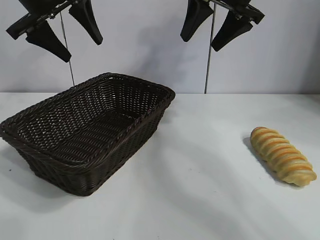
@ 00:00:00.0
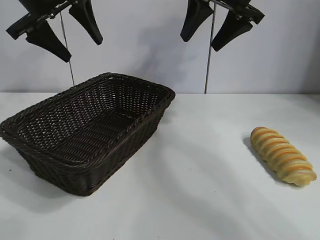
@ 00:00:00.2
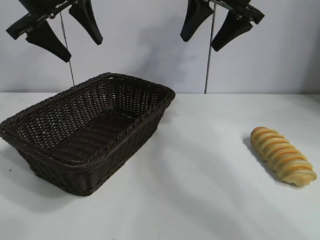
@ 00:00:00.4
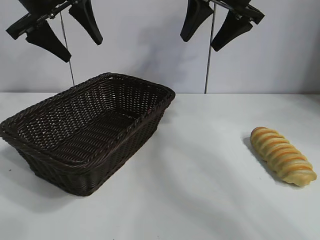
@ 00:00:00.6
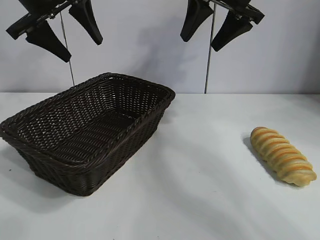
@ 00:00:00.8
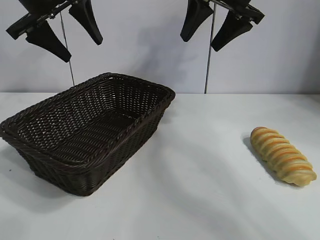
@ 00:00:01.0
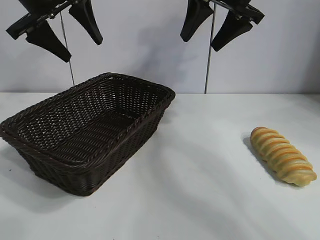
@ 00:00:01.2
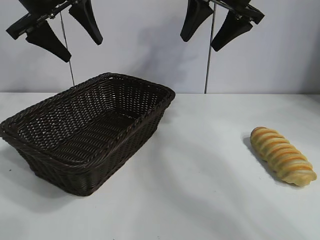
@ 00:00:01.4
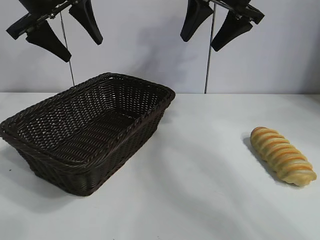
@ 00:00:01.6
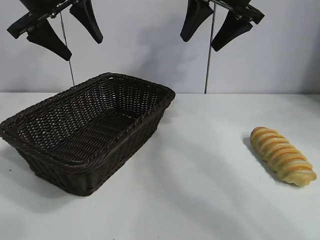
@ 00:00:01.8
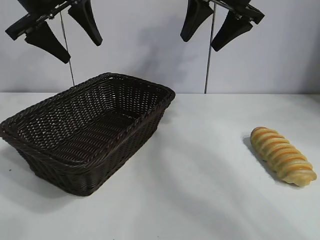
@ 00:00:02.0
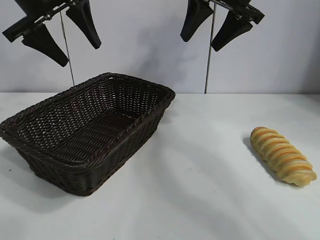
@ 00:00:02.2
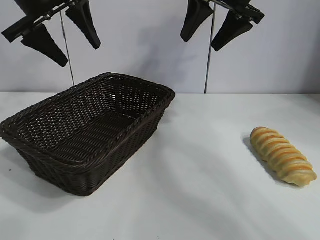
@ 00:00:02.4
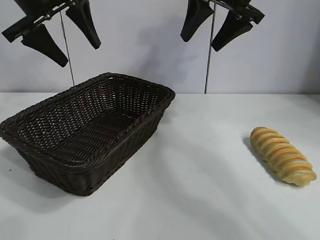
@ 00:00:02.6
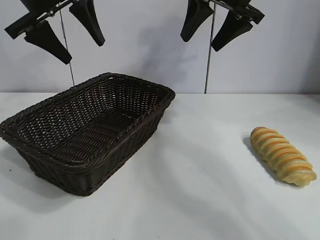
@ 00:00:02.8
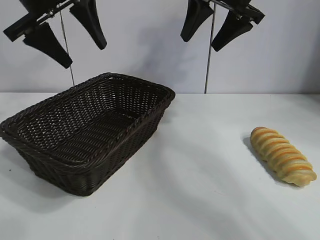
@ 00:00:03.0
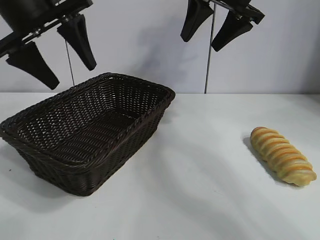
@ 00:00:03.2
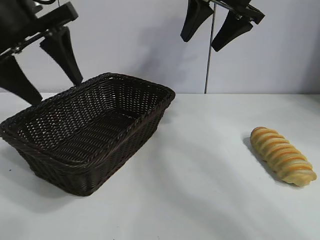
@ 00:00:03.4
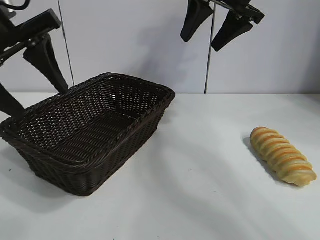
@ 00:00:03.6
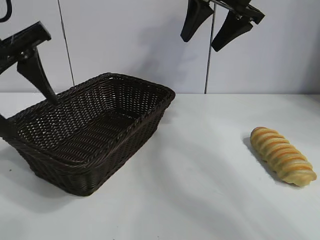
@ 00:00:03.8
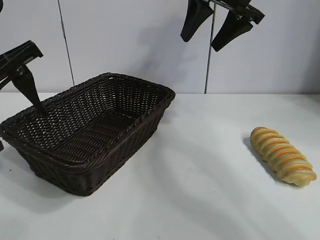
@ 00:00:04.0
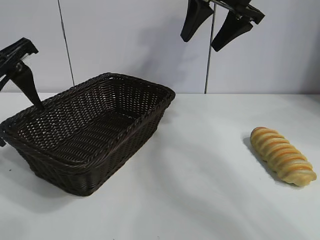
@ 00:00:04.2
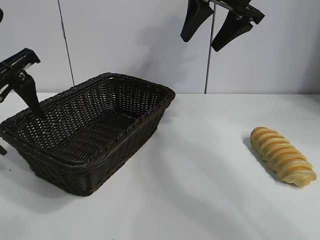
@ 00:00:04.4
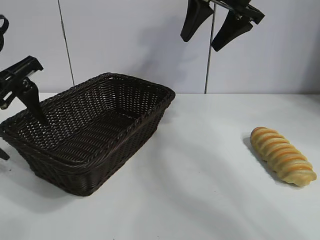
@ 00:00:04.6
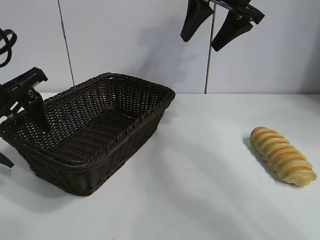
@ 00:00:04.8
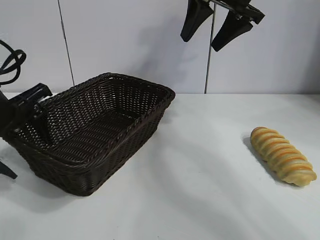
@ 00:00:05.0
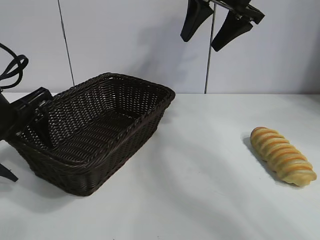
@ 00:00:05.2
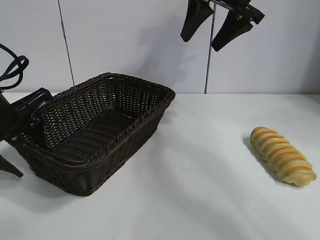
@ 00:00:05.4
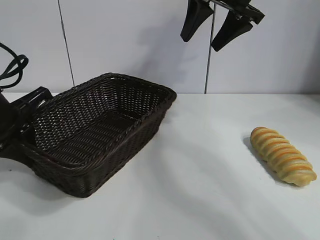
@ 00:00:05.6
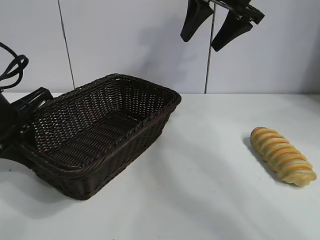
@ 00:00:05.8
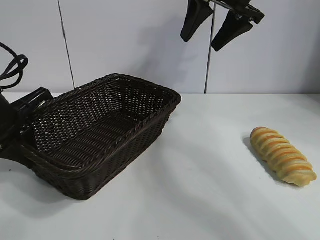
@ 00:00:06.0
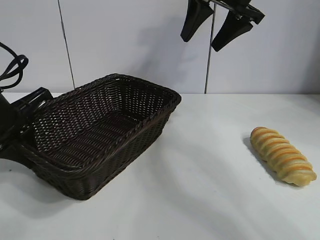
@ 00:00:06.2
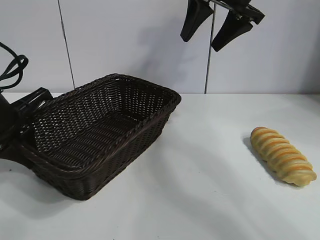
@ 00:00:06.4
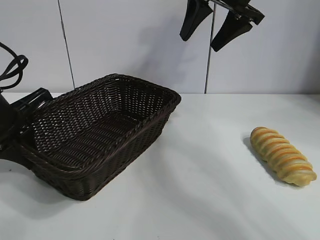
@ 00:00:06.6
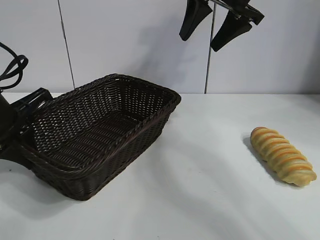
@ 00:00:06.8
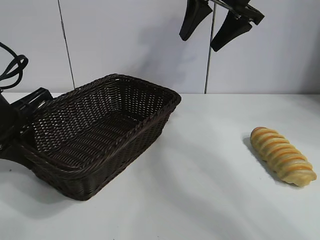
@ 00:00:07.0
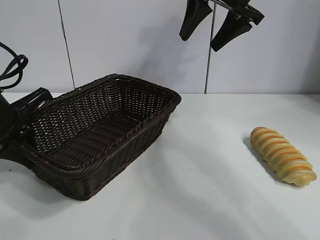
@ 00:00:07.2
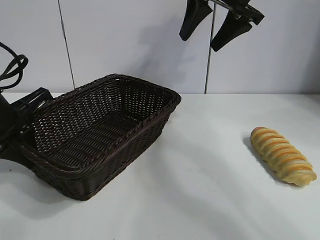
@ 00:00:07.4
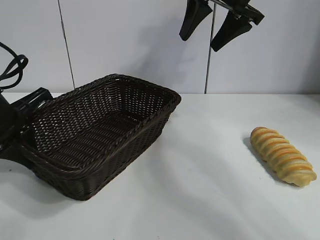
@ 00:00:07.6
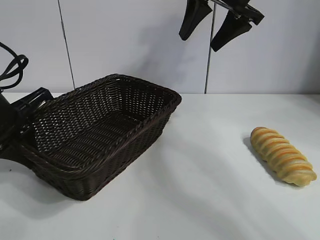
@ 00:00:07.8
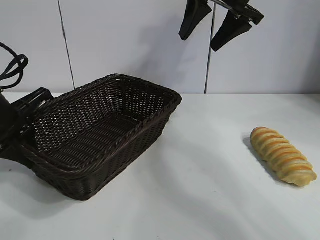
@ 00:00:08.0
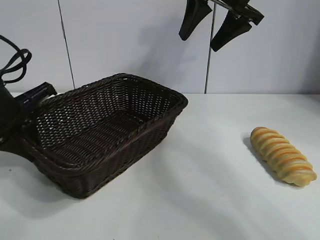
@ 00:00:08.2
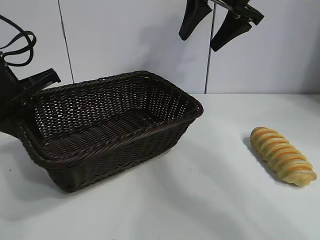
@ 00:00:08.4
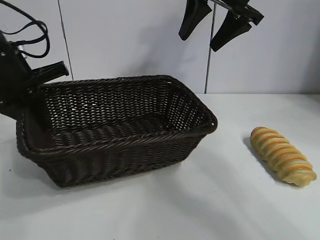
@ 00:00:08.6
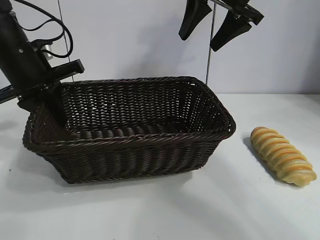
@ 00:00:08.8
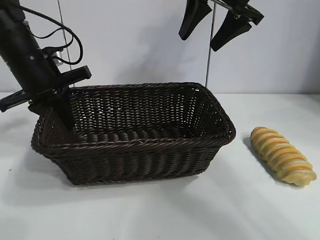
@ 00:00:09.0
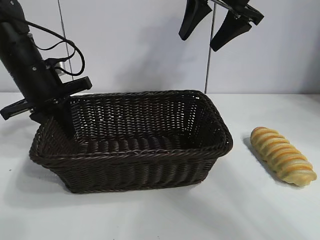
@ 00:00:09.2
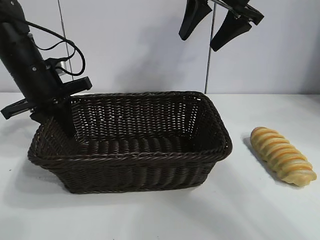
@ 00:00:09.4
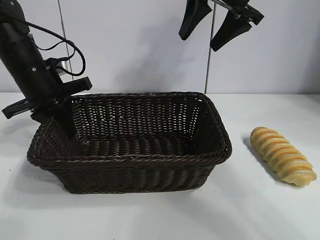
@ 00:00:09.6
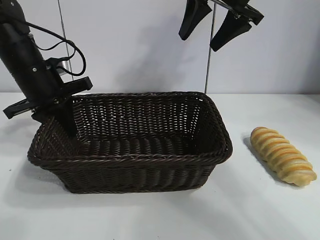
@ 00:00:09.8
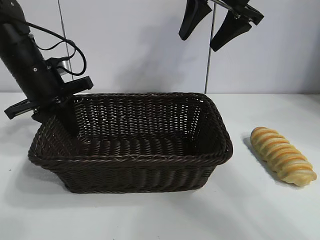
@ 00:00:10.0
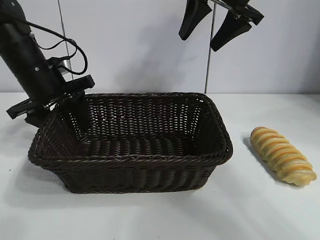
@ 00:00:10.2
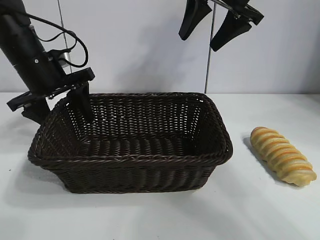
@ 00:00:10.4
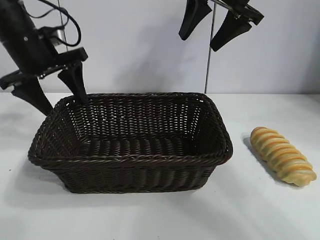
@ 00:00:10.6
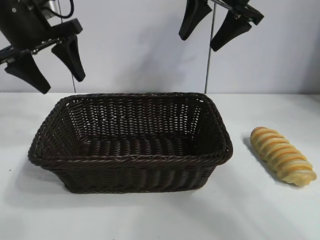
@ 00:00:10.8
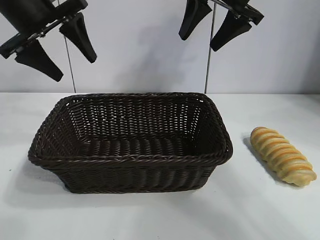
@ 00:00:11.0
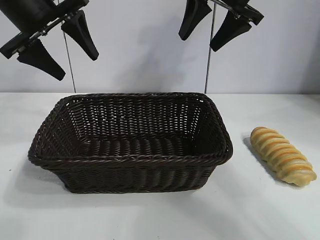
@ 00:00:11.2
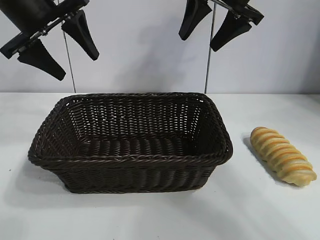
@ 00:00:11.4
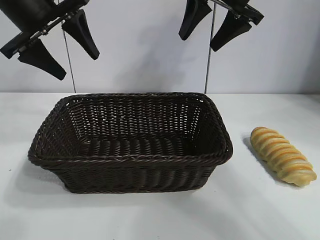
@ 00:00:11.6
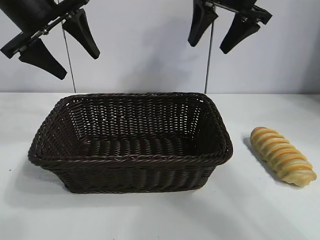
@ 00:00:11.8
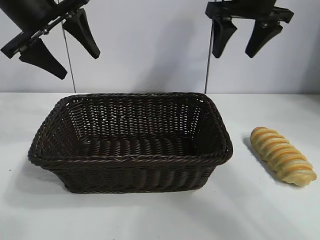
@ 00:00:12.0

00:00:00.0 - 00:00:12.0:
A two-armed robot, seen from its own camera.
Task of the whole recording: pick up the long bread and put it into the basket.
Step, 00:00:01.8 - 00:00:05.8: Grasp the basket with the left gripper.
Step, 00:00:08.2 - 00:00:10.2: Place the basket in the center of the table with the left gripper.

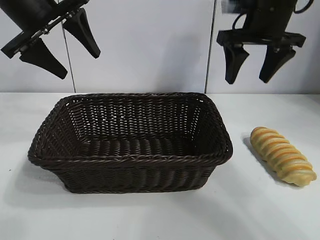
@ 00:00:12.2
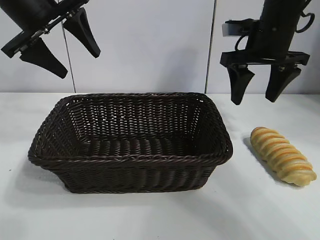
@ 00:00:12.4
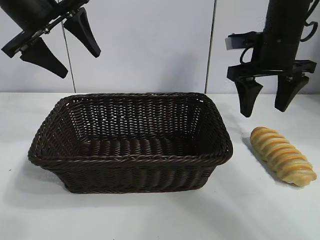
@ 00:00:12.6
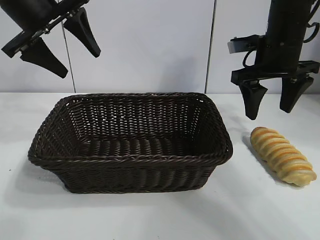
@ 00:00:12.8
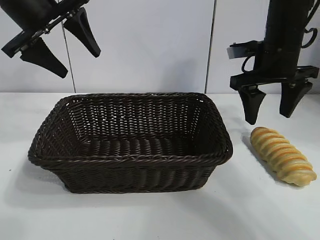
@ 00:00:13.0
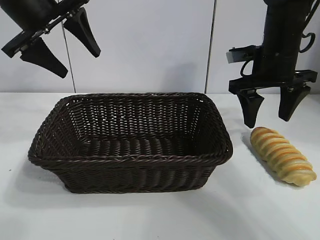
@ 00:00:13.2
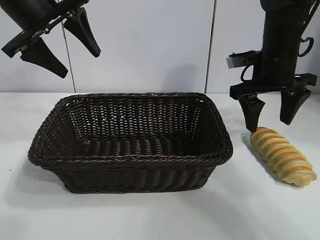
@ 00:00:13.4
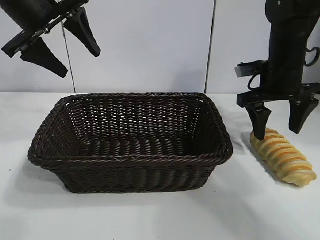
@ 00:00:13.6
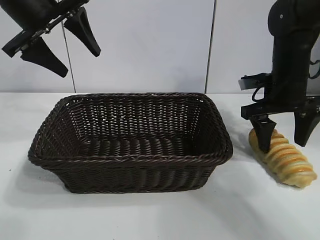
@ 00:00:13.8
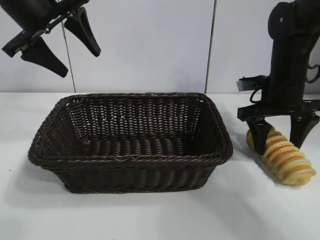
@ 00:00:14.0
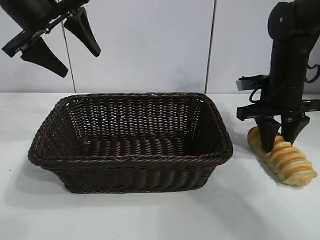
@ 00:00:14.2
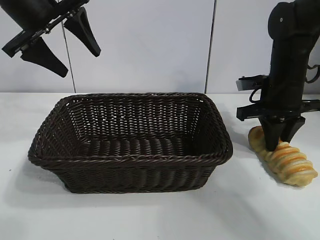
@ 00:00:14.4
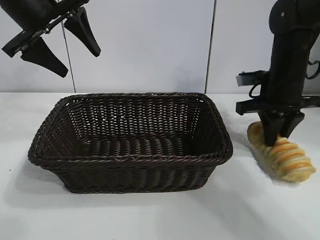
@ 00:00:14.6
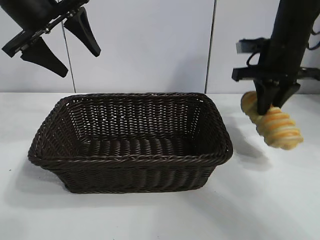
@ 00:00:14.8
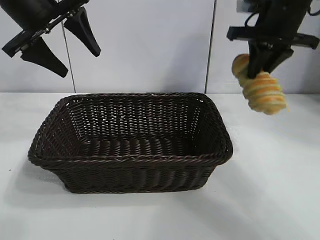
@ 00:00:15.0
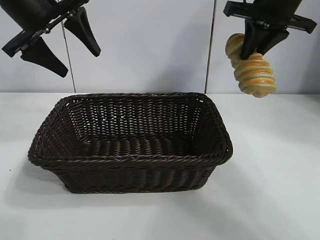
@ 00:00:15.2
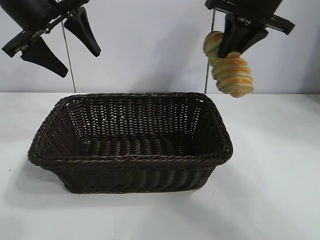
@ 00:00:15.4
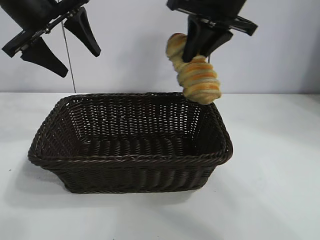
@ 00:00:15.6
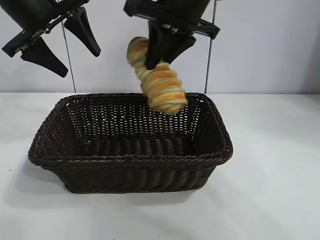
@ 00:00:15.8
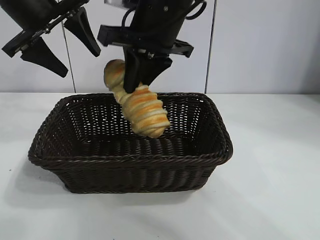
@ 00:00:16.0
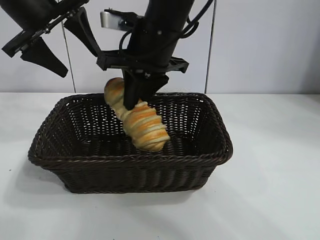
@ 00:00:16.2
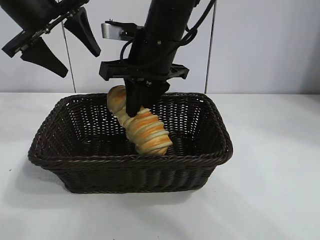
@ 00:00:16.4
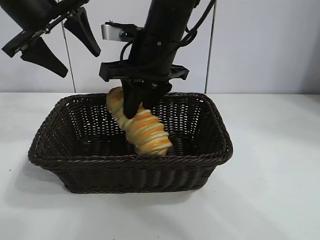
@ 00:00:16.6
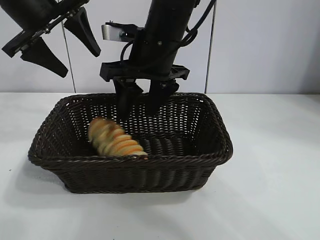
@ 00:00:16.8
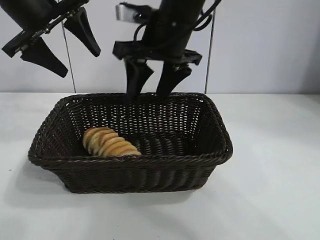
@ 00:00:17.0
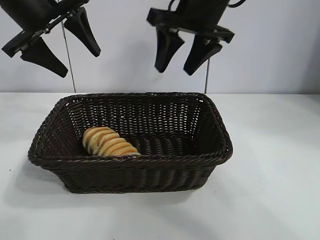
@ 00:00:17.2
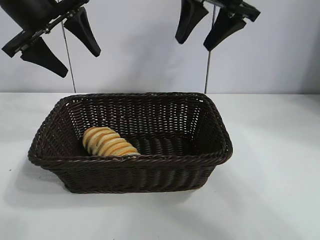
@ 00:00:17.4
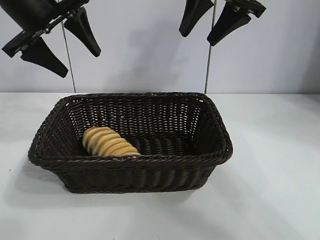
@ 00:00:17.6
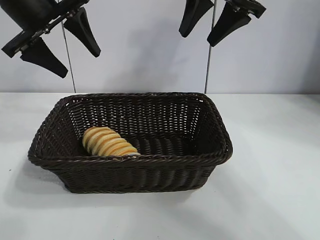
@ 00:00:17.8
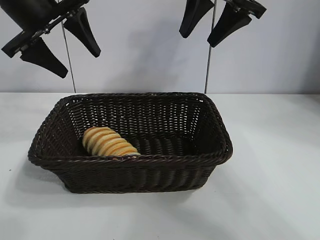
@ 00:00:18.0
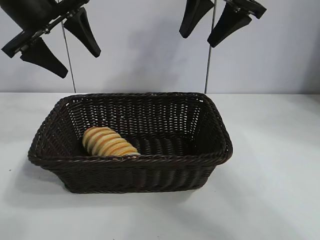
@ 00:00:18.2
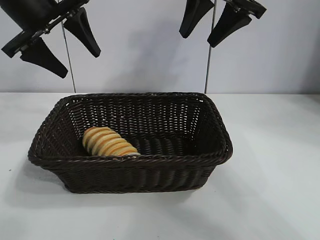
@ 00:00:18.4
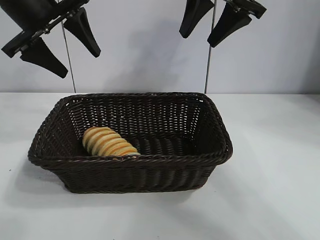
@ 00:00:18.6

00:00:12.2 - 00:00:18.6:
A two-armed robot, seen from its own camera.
Task of the whole recording: pick up the long bread and put it into the basket.
Step, 00:00:12.2 - 00:00:14.4: Grasp the long bread with right gripper.
Step, 00:00:14.6 - 00:00:17.0: Place the long bread in the basket with right gripper.
